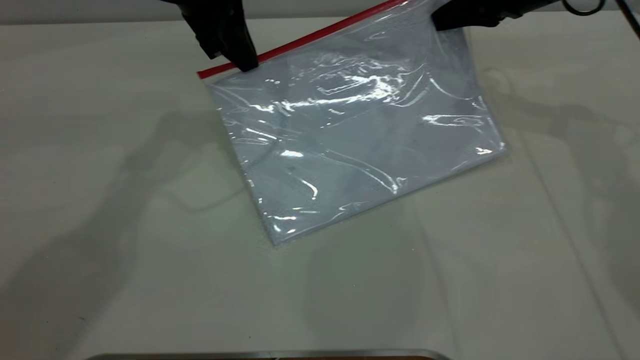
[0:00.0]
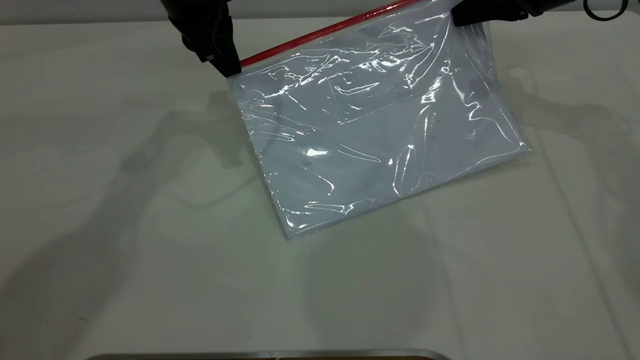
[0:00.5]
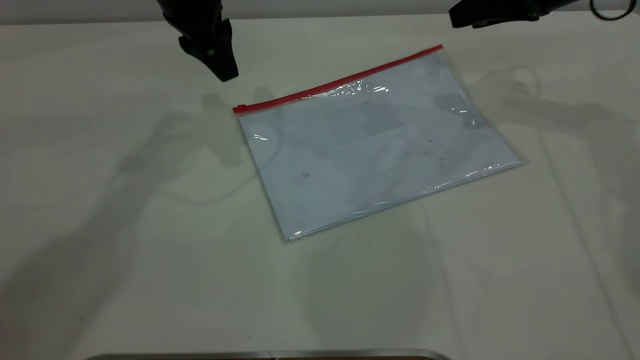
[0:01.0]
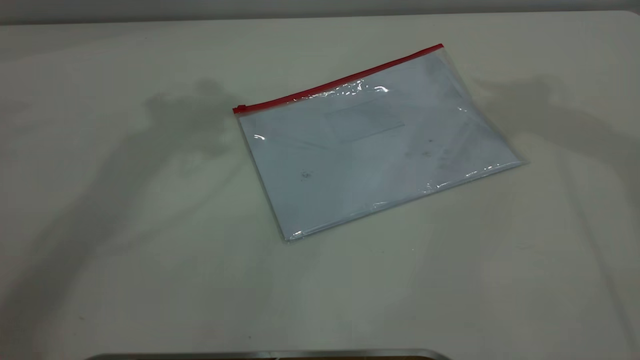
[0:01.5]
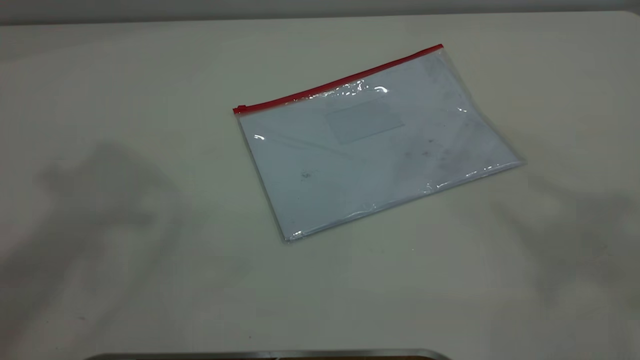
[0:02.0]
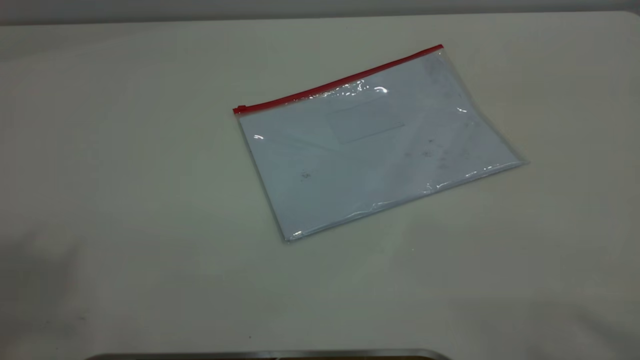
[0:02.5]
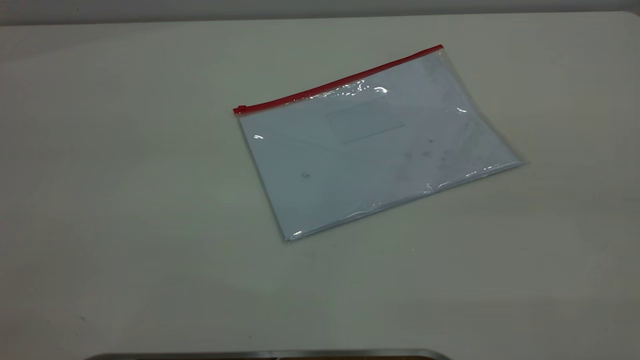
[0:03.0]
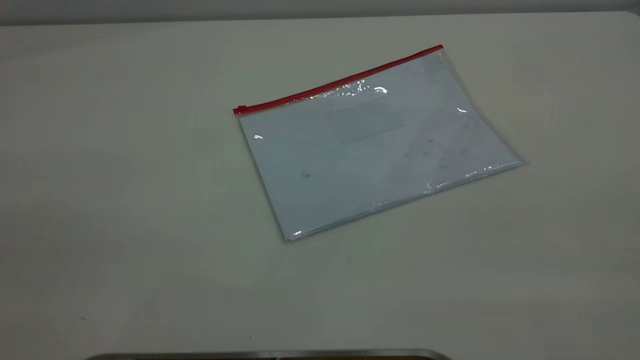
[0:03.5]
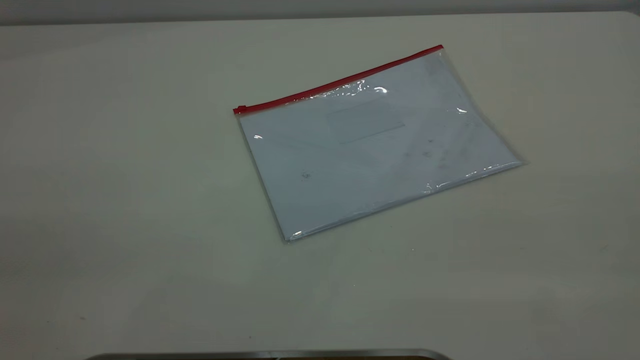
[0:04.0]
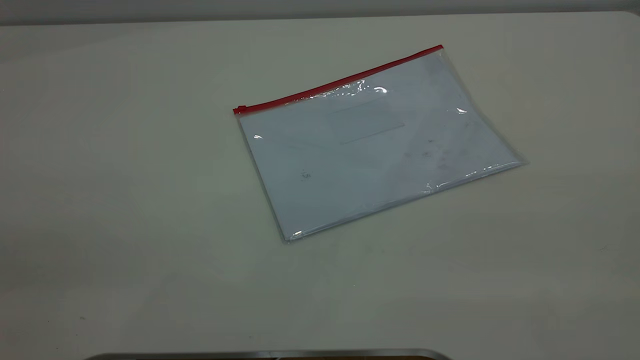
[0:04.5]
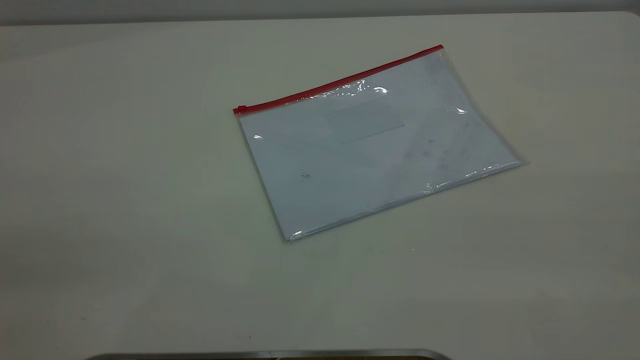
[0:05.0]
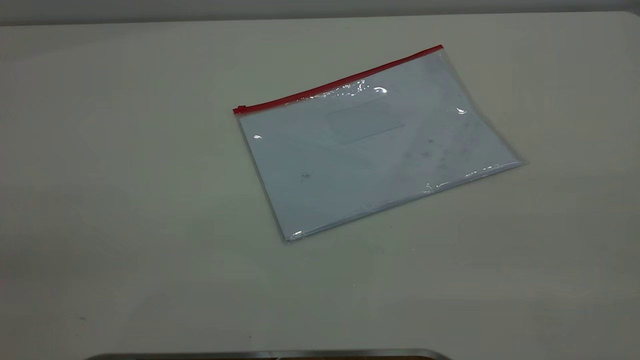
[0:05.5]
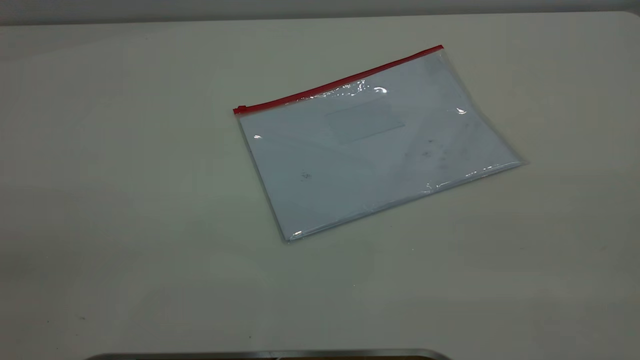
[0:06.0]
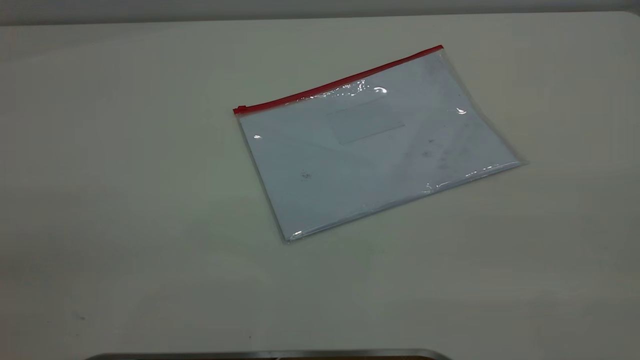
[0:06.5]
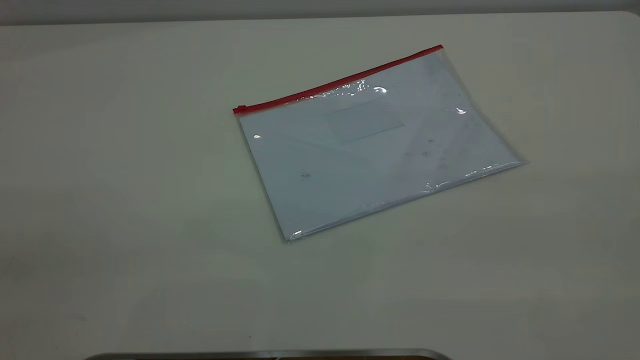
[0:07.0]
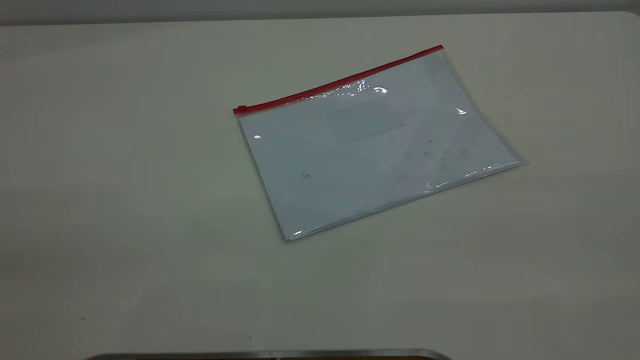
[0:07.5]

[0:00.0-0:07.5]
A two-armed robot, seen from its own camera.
Step, 0:01.0 to 0:02.0: Place the transparent plastic bag.
0:00.0 to 0:02.0: Both grippers travel together upward and backward, roughly 50 cm. The right gripper opens. Meanwhile the left gripper opens up.
0:05.5 to 0:07.5: Both grippers stay put.
